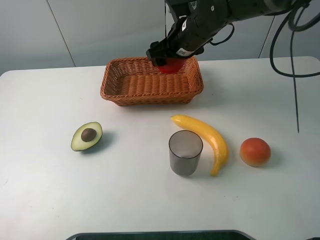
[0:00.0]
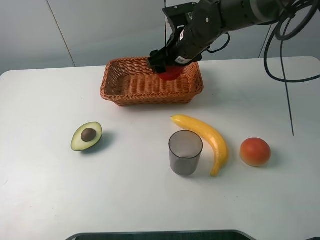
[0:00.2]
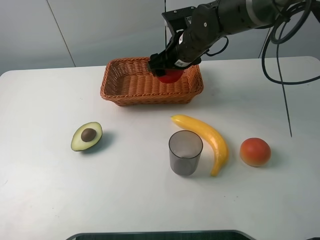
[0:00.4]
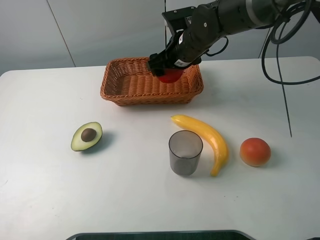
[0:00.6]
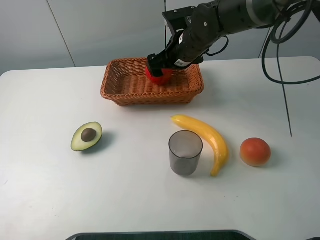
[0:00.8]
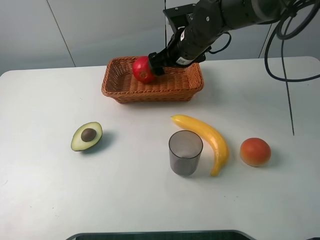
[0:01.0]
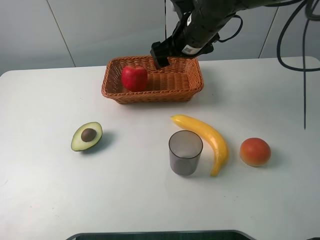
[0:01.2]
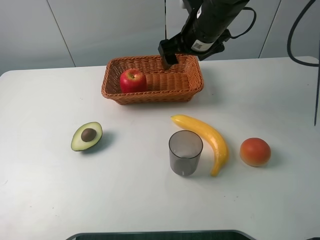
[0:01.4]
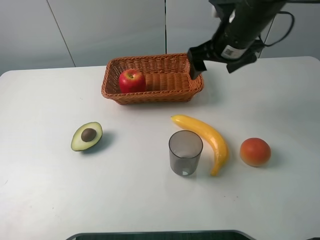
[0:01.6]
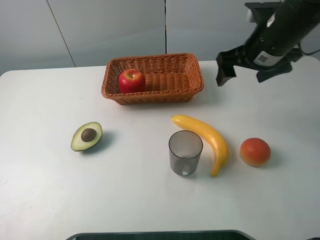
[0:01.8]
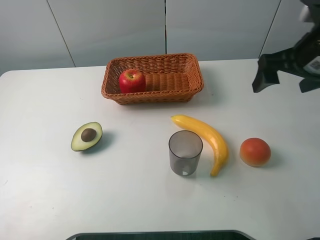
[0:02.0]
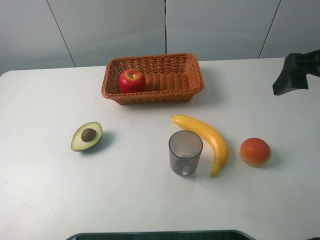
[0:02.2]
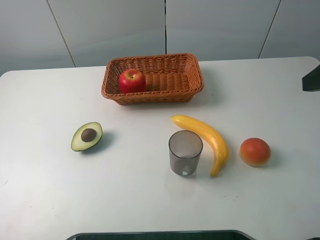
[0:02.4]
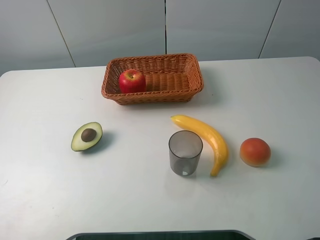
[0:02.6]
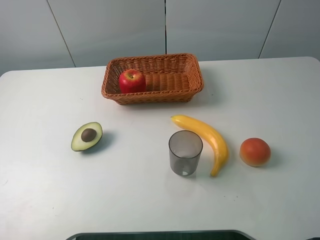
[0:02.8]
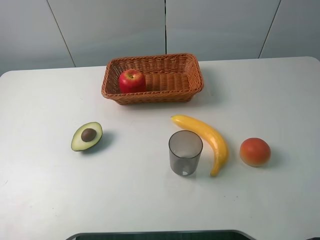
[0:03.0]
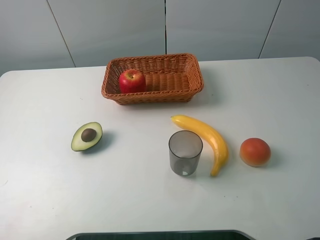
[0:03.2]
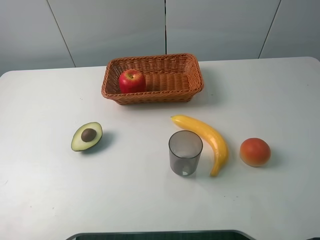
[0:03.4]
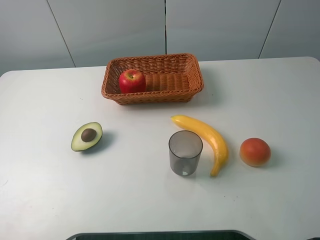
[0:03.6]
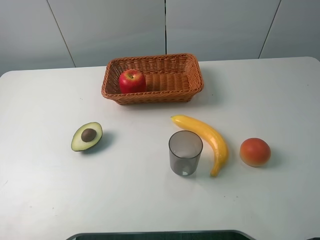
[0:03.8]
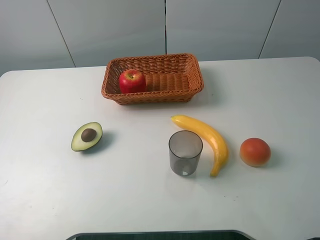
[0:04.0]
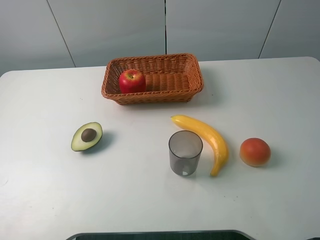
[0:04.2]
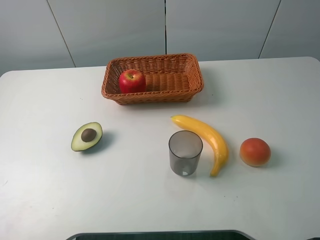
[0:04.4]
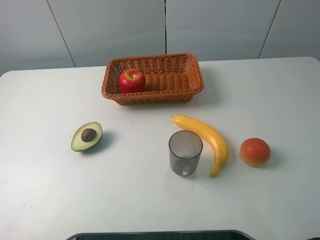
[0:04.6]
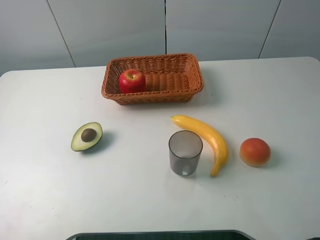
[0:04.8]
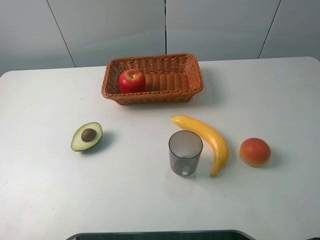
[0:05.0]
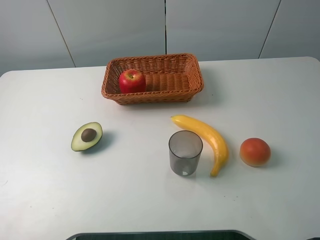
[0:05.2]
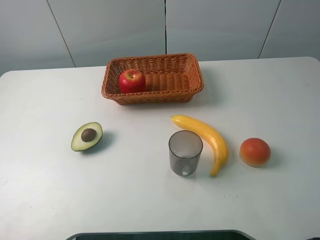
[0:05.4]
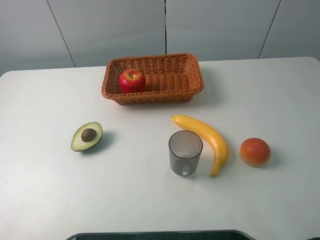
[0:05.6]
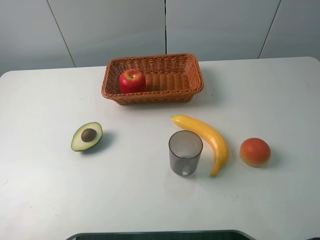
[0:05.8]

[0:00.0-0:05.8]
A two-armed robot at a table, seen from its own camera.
Task of the whole recording: randomly pick up an item from the table and put it in the basket.
0:00.0 to 0:01.4: The right gripper changes place by approximately 5 cm, and opens.
0:01.4 to 0:02.8: The right gripper shifts some 35 cm backward and to the right.
0:04.4 to 0:05.8: Both grippers stay put.

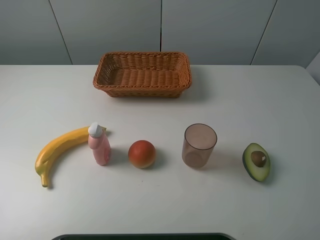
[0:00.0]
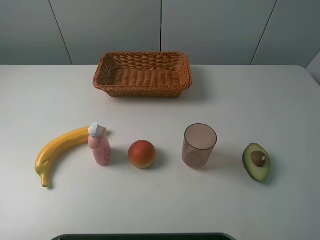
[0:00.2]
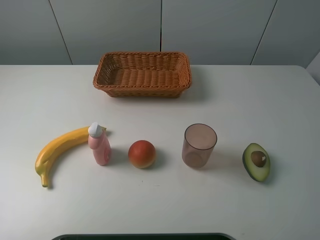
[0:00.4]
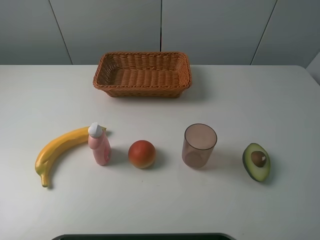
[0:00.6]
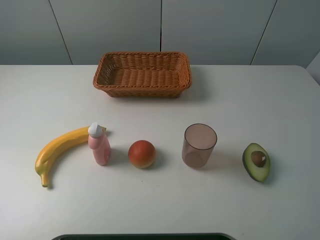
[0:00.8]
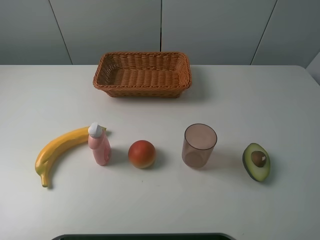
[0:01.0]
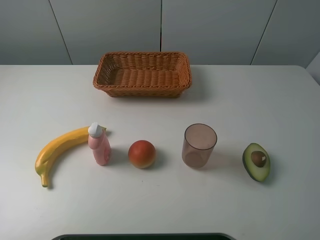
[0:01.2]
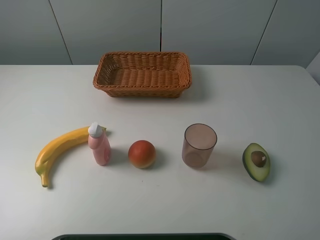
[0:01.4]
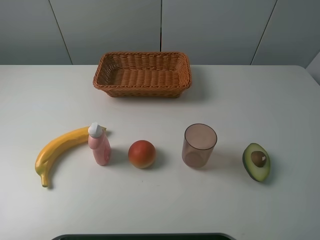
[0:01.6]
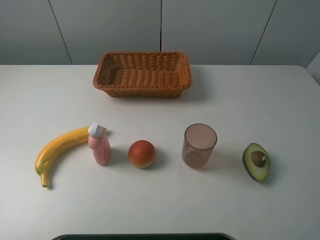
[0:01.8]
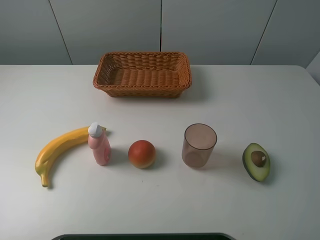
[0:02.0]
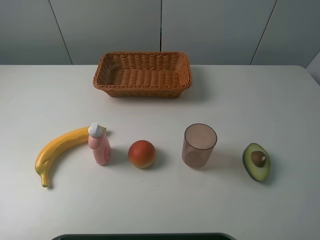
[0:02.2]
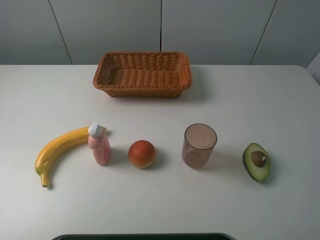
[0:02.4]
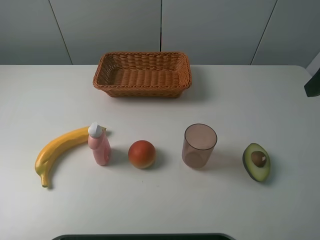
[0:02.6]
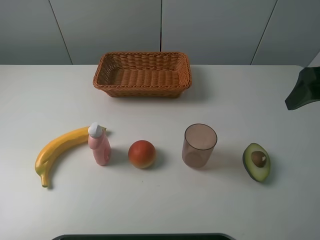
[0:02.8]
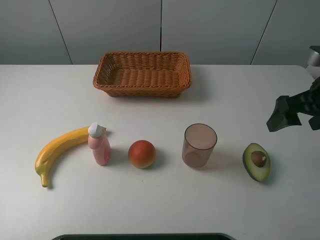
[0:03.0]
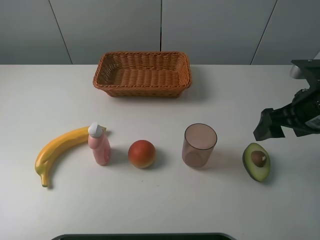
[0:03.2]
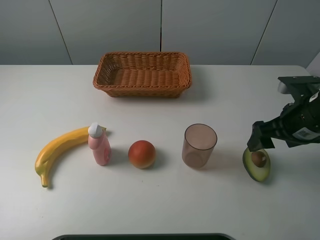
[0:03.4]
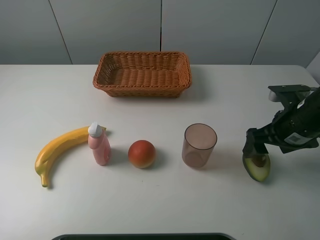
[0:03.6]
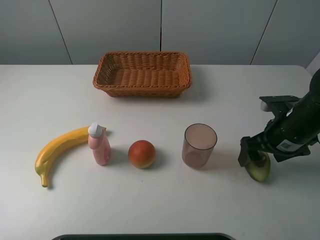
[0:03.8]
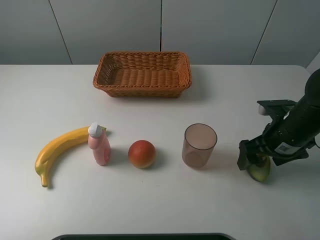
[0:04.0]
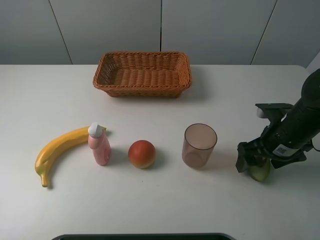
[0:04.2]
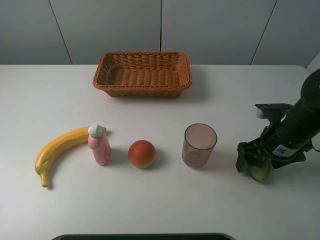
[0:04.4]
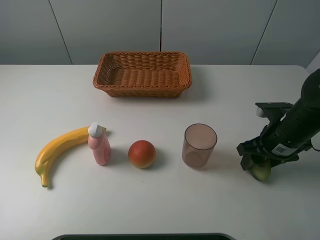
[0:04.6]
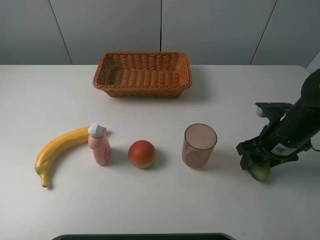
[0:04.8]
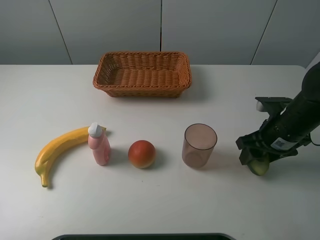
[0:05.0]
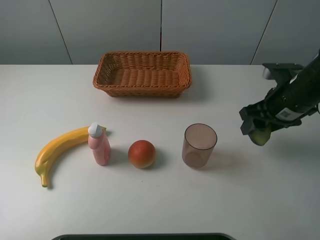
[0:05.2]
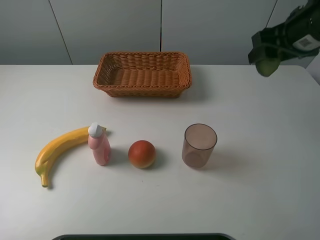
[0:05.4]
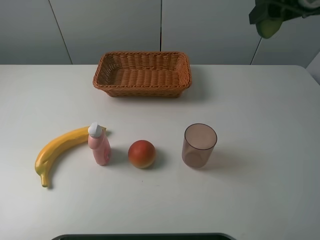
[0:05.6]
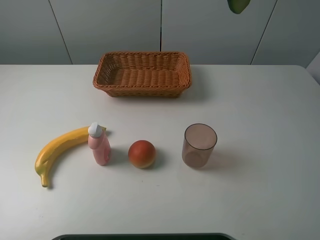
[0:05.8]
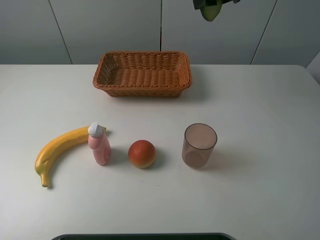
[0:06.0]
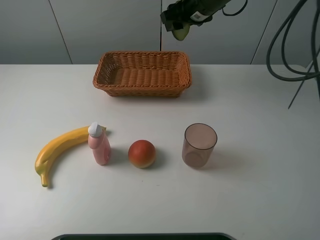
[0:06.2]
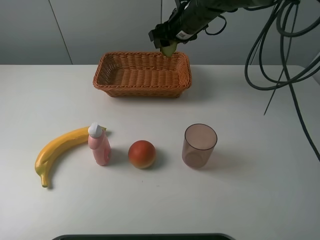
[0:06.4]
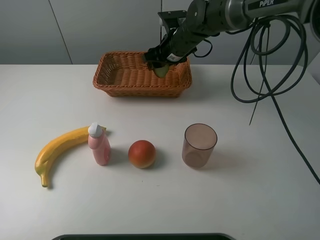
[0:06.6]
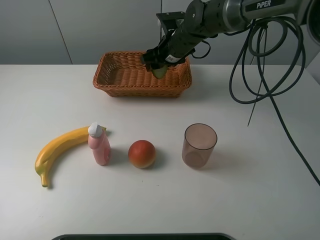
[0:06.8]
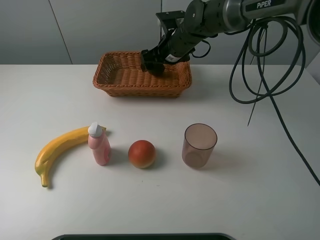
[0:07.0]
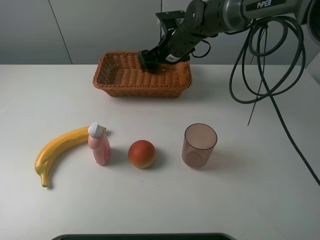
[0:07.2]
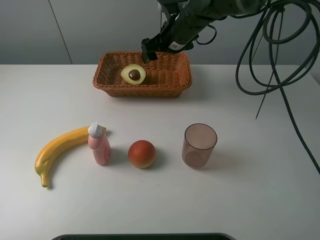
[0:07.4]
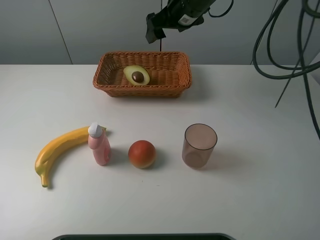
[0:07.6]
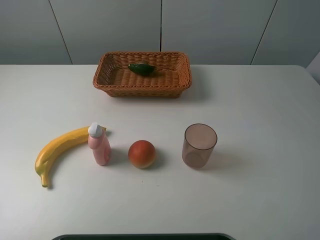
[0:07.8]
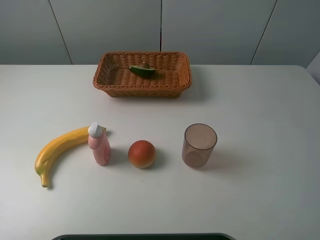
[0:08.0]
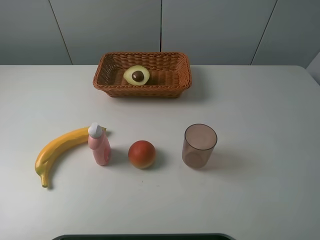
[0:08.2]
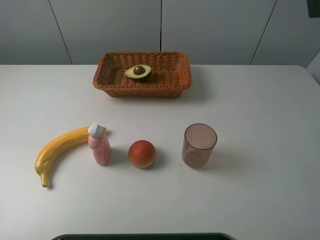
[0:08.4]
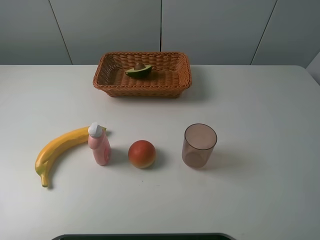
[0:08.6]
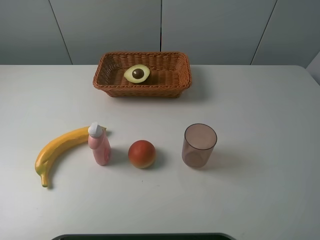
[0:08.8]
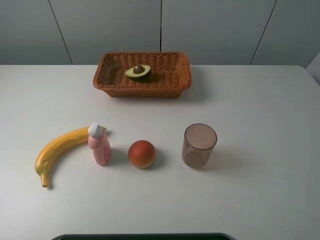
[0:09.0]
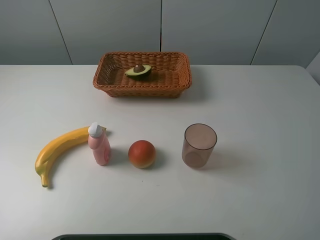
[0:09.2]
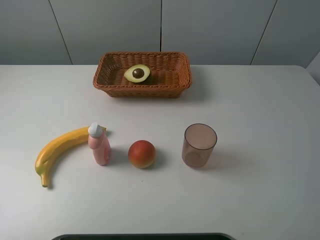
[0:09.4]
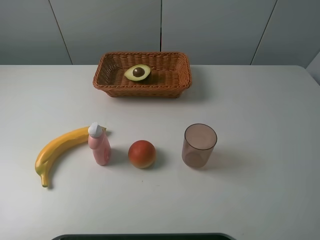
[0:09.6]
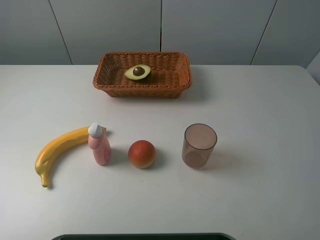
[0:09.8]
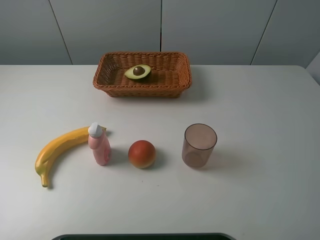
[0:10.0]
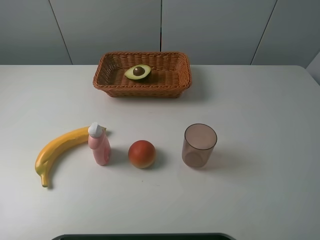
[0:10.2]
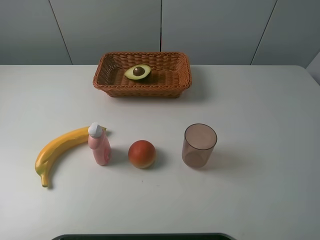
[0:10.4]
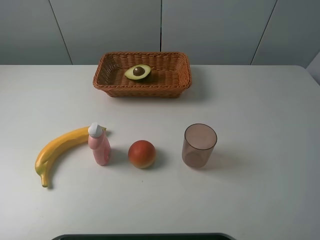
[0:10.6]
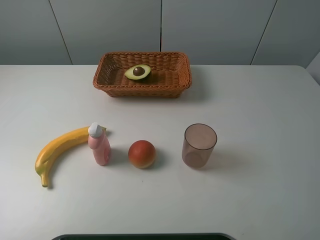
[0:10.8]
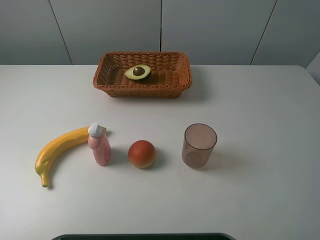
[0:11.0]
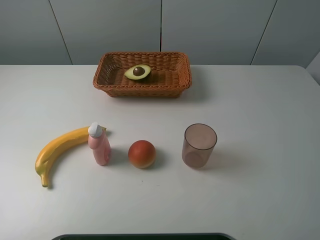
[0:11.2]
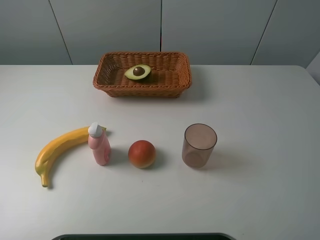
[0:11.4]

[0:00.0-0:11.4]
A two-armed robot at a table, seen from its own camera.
Task of the whole recording: randomly pick up an item from the table and put it in the basket.
Step, 0:00.0 to 0:04.8: Grasp the avocado with the right gripper.
Step, 0:05.0 to 0:07.6: Place the avocado into the basket with the right gripper.
0:00.0 to 0:01.4: Both grippers stay about where they are.
0:01.4 to 0:02.8: The right gripper heads forward, covering roughly 20 cm.
0:02.8 to 0:04.2: The right gripper moves downward, some 15 cm.
0:04.2 to 0:05.6: The right gripper moves upward and forward, roughly 25 cm, and closes its fingers.
0:05.6 to 0:07.2: The right gripper shifts roughly 30 cm downward, to the left and forward, and opens.
0:07.2 to 0:08.6: The right gripper travels backward, to the right and upward by some 50 cm.
0:10.0 to 0:11.4: Both grippers stay about where they are.
